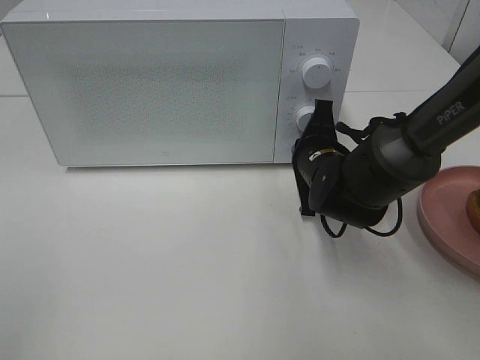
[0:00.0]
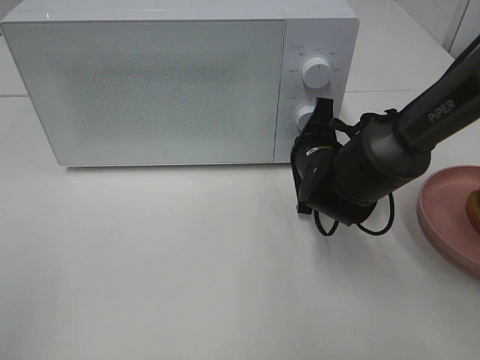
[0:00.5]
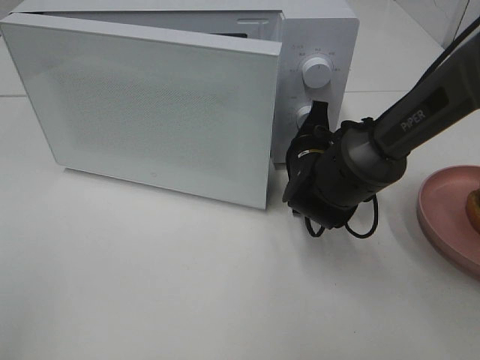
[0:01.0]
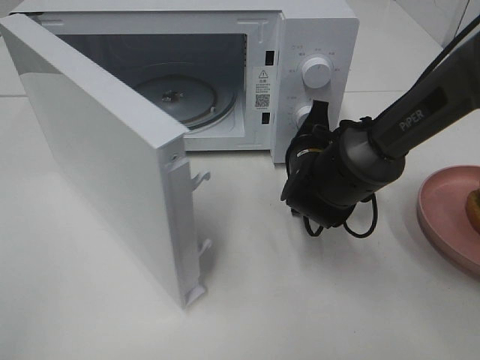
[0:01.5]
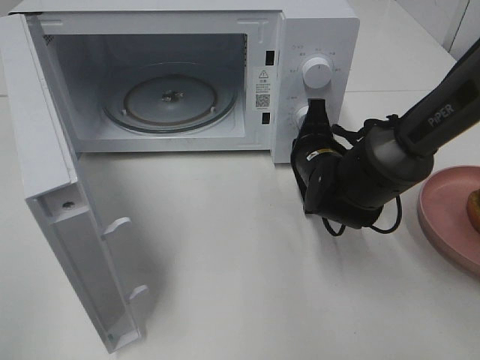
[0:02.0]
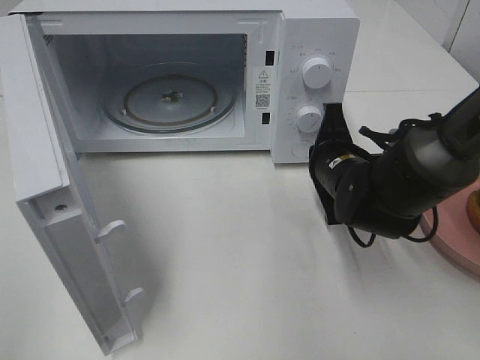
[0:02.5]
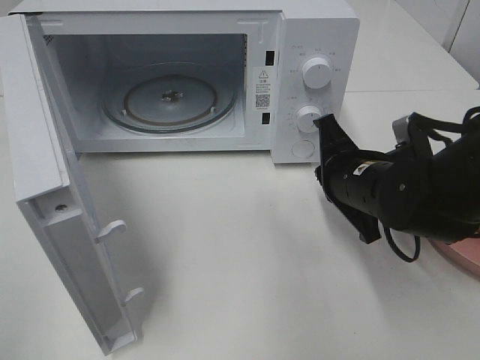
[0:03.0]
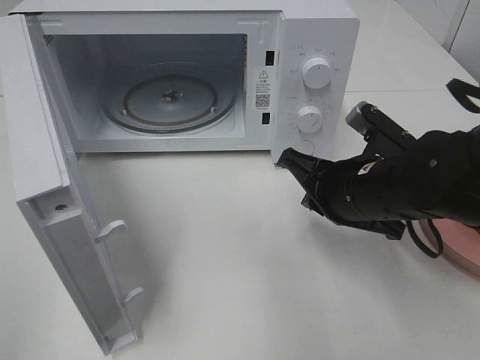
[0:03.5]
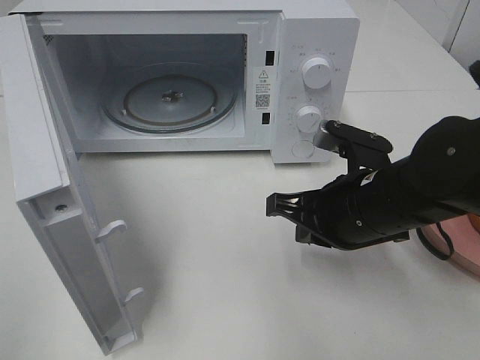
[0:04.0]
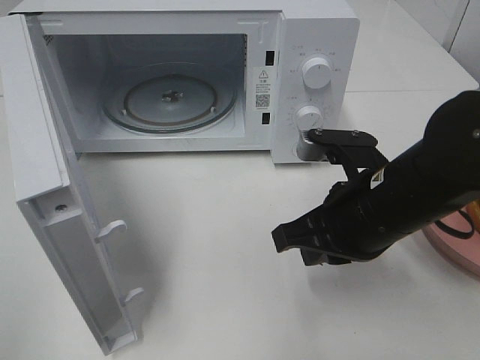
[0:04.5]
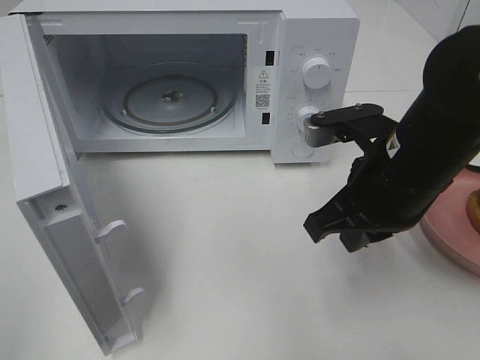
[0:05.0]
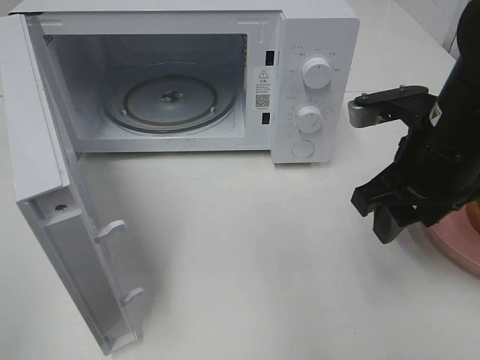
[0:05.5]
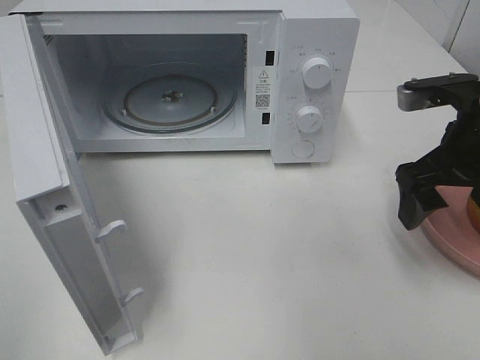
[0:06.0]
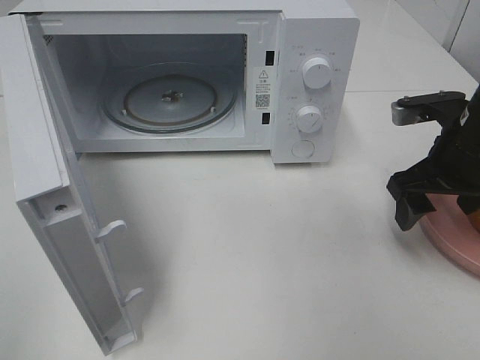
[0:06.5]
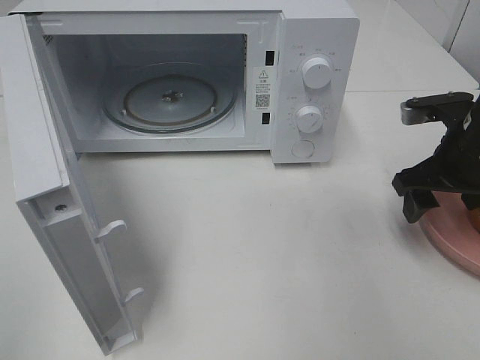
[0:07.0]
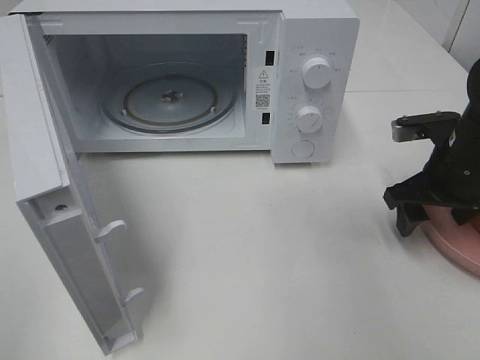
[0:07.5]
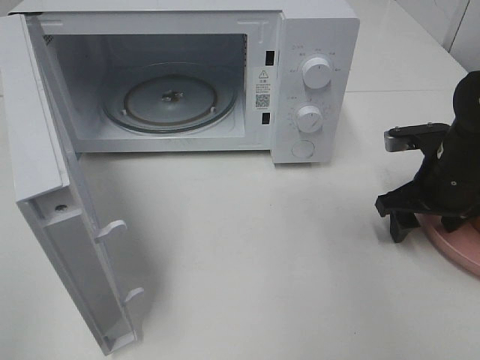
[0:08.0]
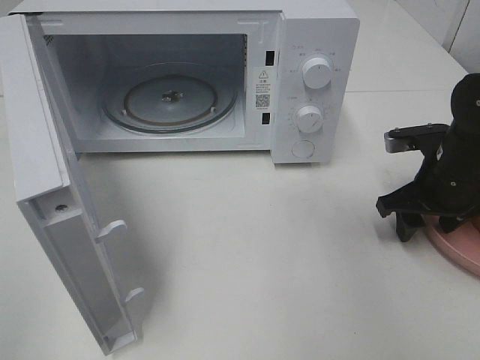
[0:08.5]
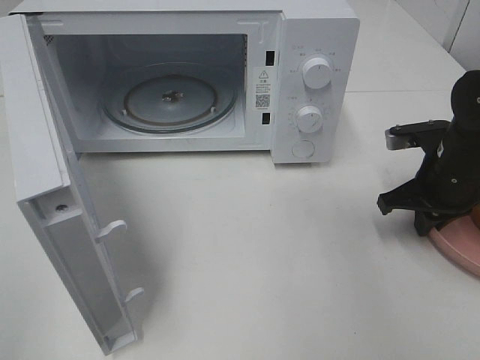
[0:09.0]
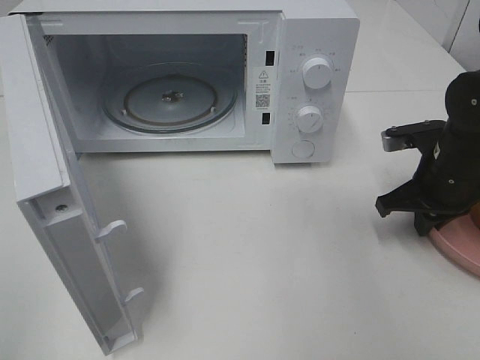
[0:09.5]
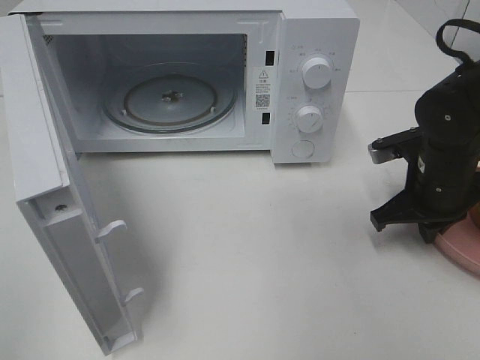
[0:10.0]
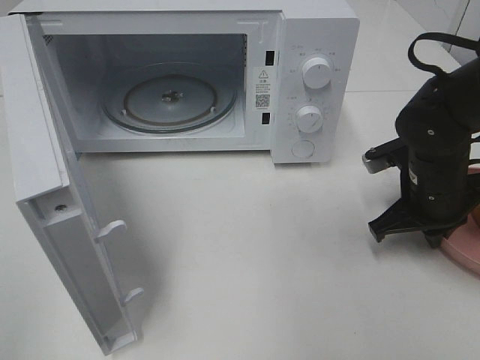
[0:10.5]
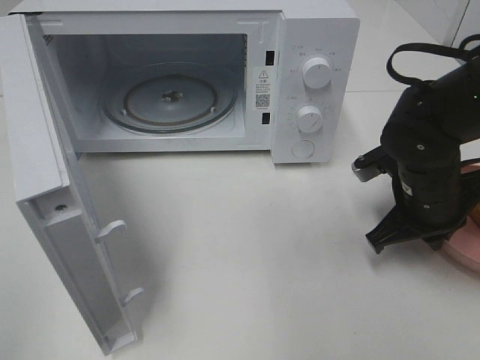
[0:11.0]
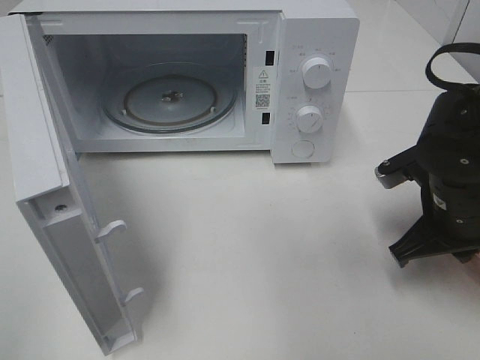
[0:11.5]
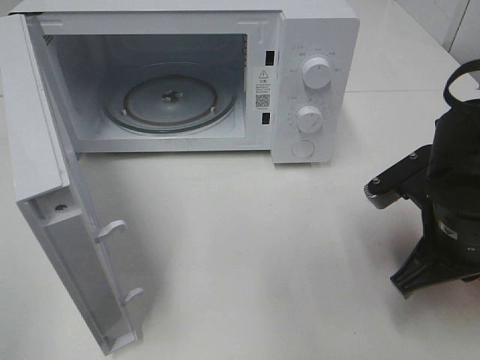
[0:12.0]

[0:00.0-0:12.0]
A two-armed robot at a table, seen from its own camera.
Task of the whole recording: Heat the burger.
Step, 0:00.0 to 0:02.0: Right hand: press the switch.
Step, 0:02.5 to 0:09.0: Right hand: grab the plate with the hamburger.
0:02.0 to 0:04.0: The right gripper goes roughly 10 cm backward and upward.
0:04.0 to 0:06.0: The right gripper heads to the right and upward, covering some 10 cm, and opens.
0:06.0 to 0:08.0: The right gripper goes some 10 cm downward.
0:08.0 to 0:10.0: The right gripper closes its fingers.
0:10.0 to 0:12.0: The right gripper heads backward, covering roughly 10 cm.

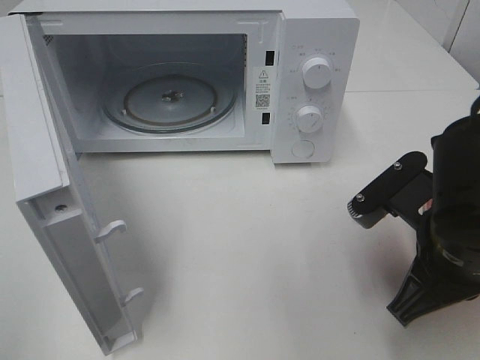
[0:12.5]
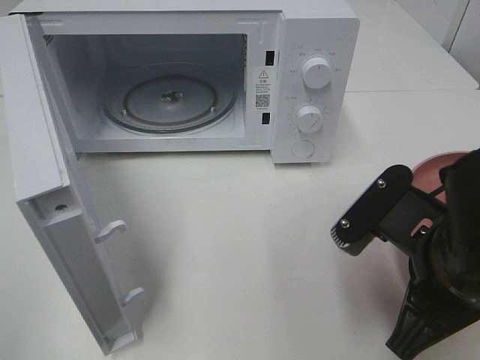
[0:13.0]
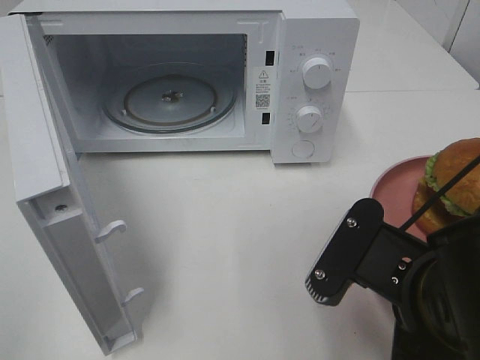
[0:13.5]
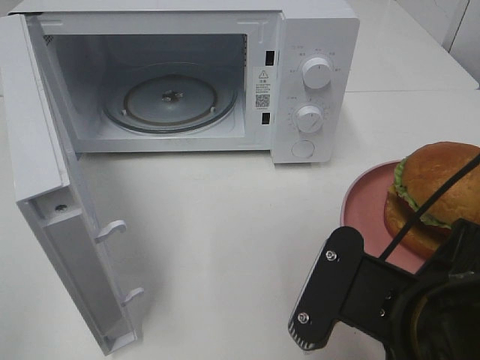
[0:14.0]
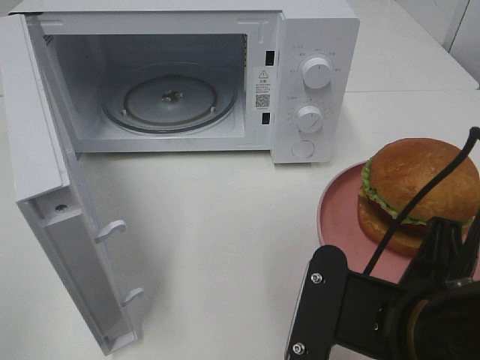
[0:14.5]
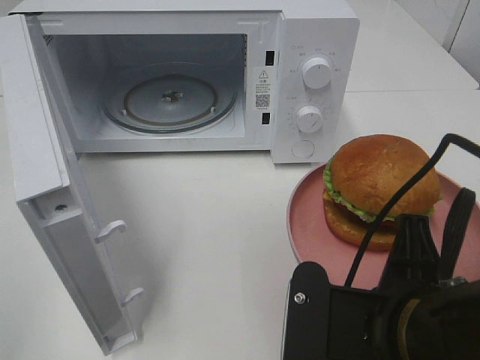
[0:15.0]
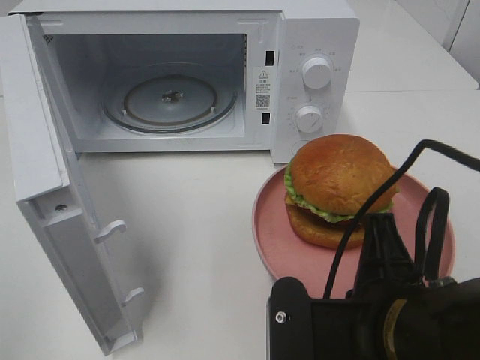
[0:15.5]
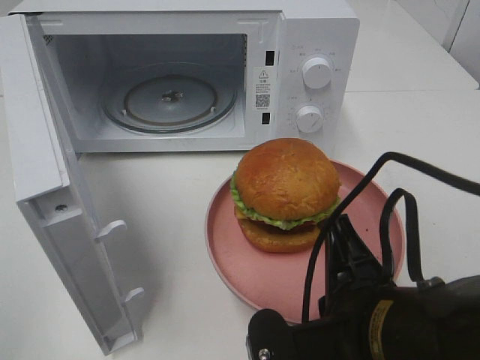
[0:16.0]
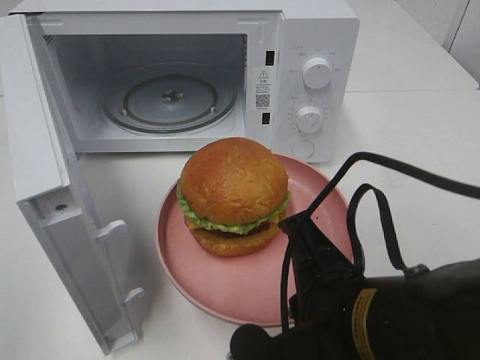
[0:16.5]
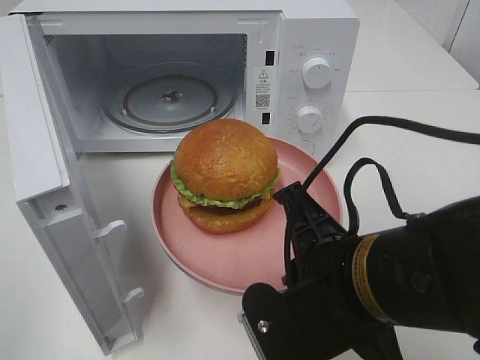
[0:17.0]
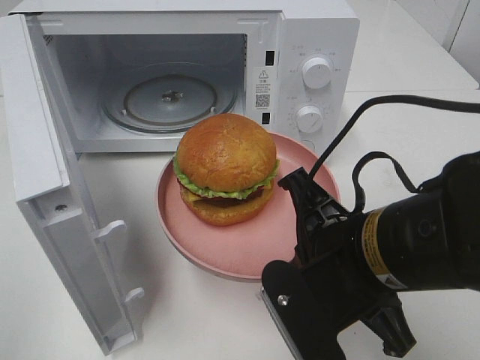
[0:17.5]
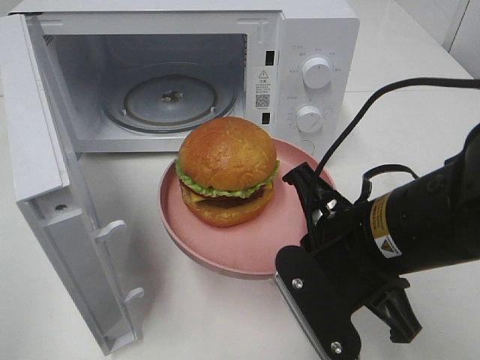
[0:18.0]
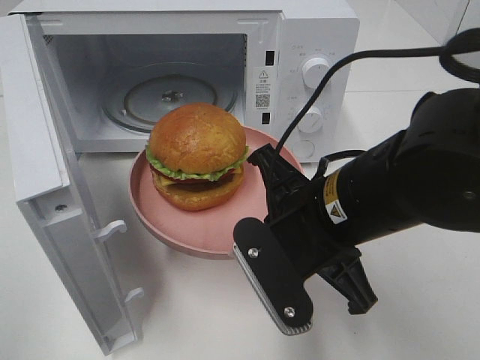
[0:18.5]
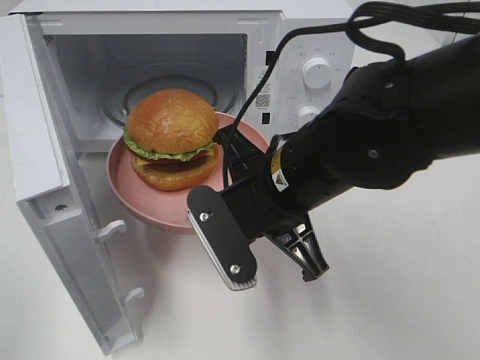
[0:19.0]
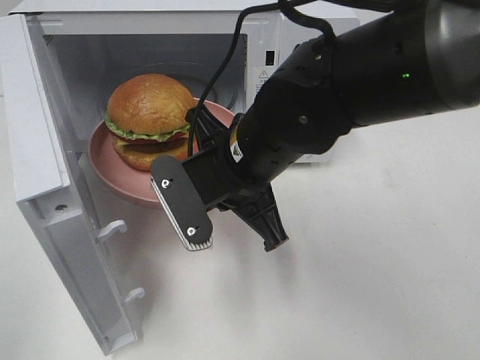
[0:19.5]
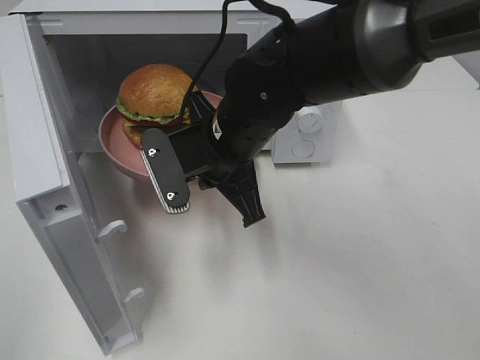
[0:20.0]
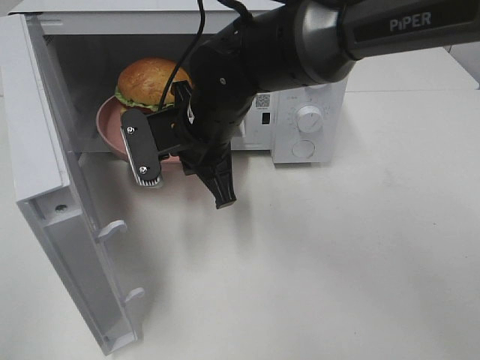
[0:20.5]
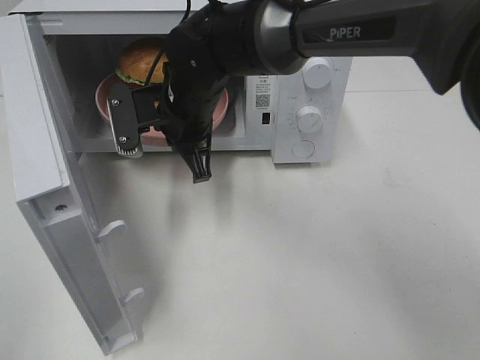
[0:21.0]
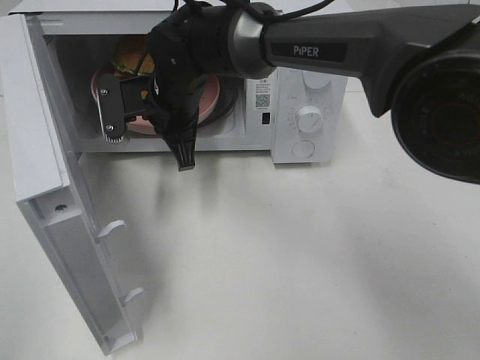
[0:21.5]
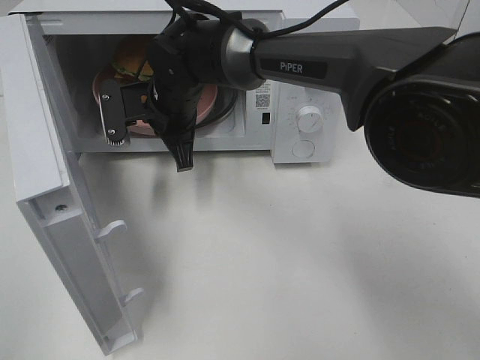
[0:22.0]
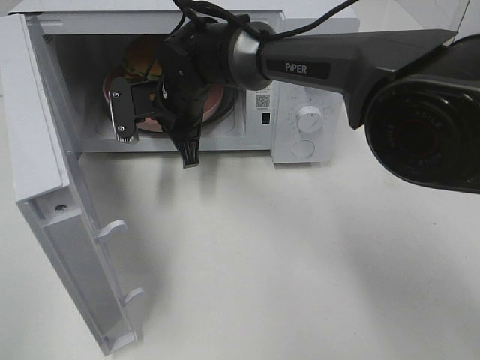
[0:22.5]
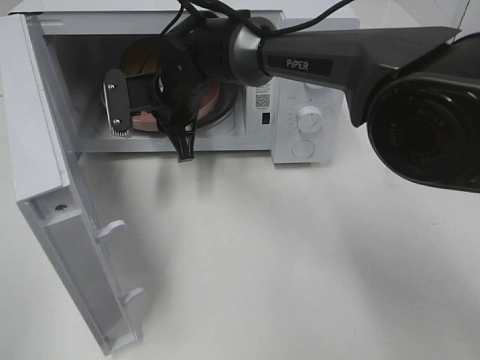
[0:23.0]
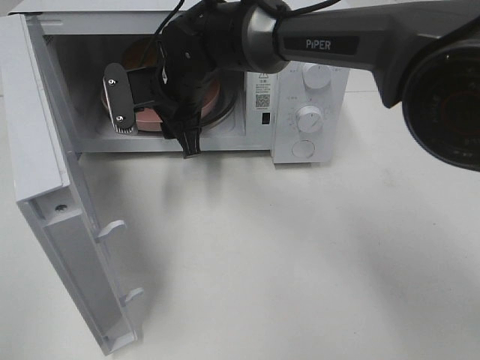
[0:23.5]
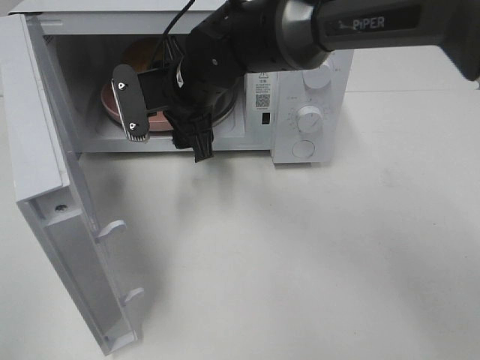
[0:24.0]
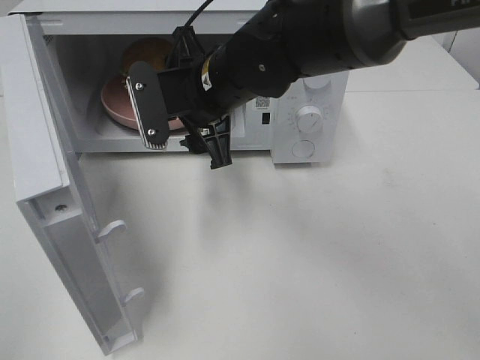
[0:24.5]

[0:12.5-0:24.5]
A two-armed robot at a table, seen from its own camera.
Task of the whole recording: Heat the burger.
Step, 0:12.5 to 0:23.0: Right hand: place the plate in the microwave.
0:12.5 to 0:14.5: The right gripper is displaced backward and to the left by about 10 cm.
0:16.5 to 0:18.5: The right gripper heads forward, covering approximately 10 cm.
0:18.5 to 0:20.5: The right gripper is displaced forward and to the left by approximately 15 cm.
0:20.5 to 0:22.5: The right gripper travels forward by about 10 cm.
0:22.5 to 0:24.5: The right gripper moves backward, upward and to the right, roughly 10 cm, and opens.

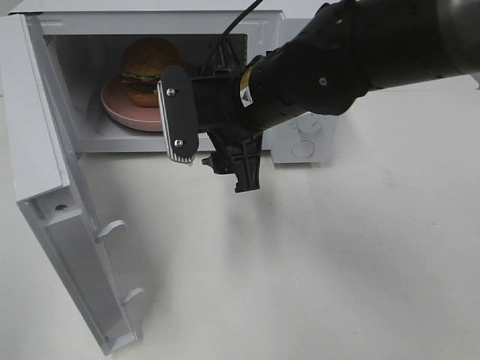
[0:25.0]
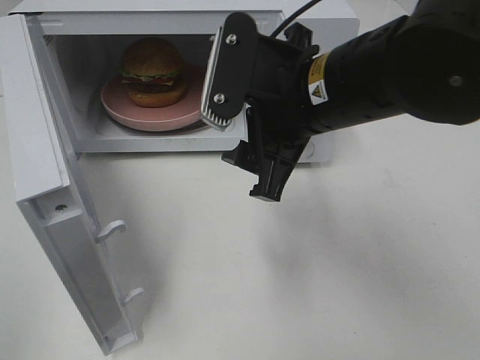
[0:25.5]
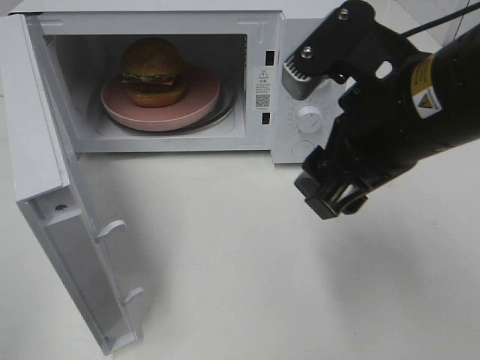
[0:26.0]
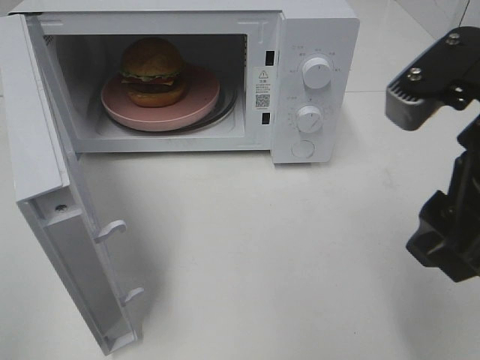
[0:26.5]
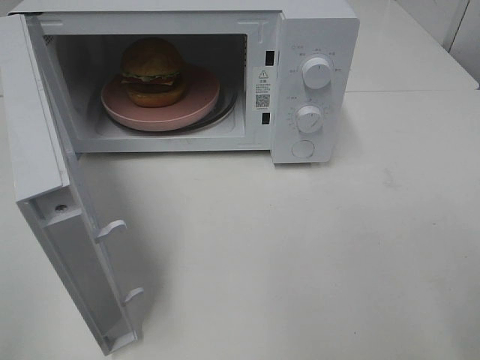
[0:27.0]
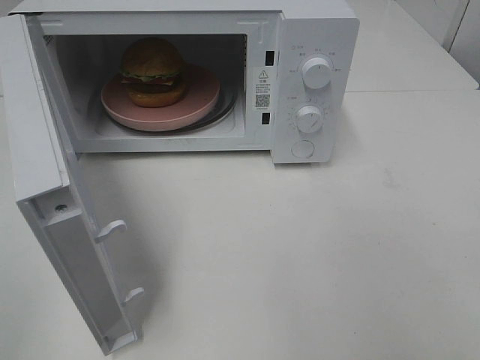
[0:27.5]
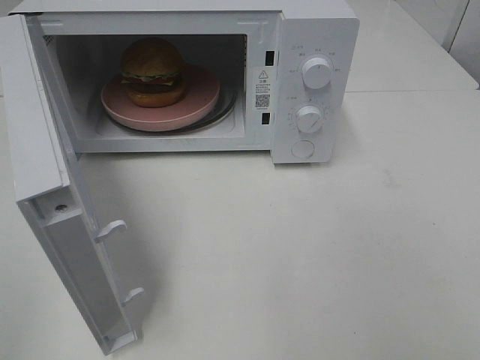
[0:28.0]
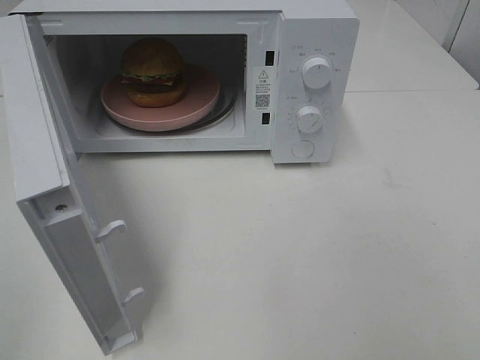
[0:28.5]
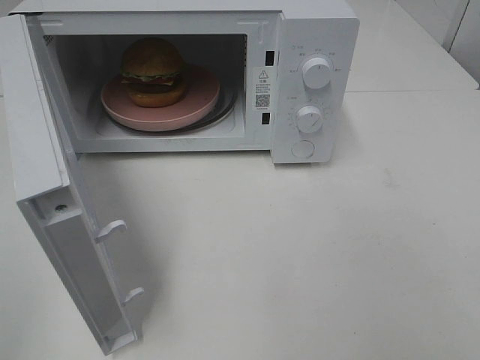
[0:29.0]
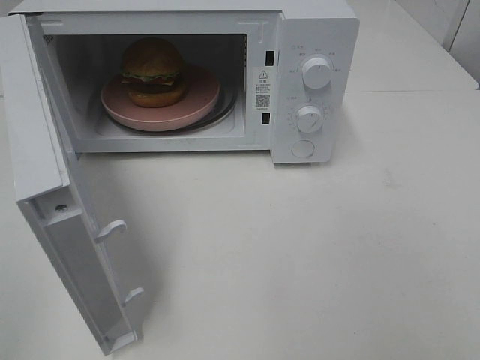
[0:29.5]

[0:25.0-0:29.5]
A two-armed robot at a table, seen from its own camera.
Task of the whole recording: Heat the burger.
0:25.0 to 0:27.0: The right gripper travels to the right and backward by approximately 30 cm.
